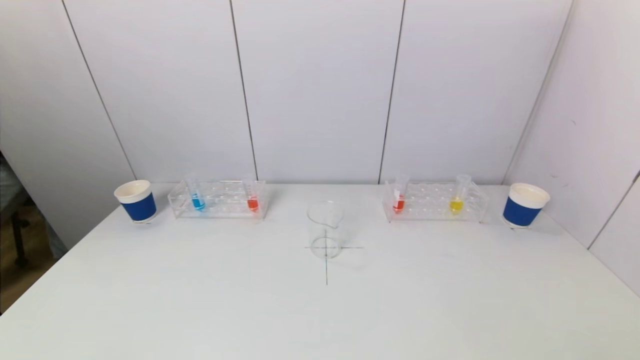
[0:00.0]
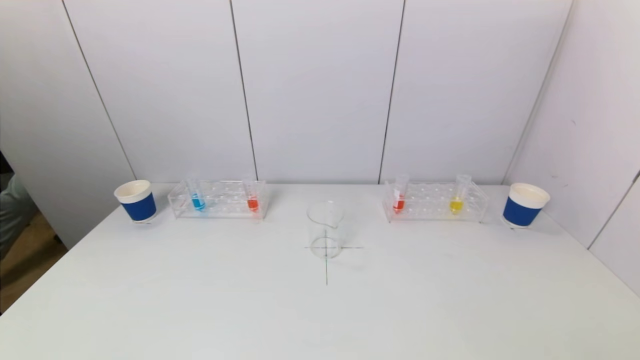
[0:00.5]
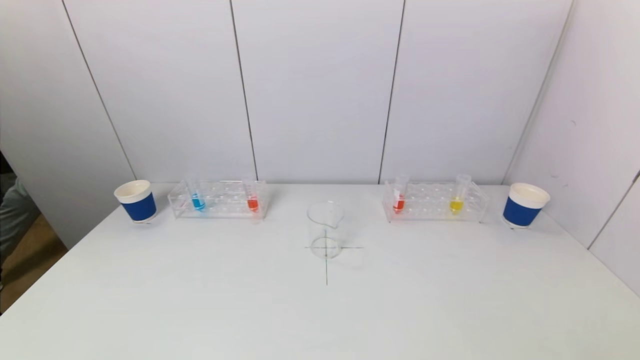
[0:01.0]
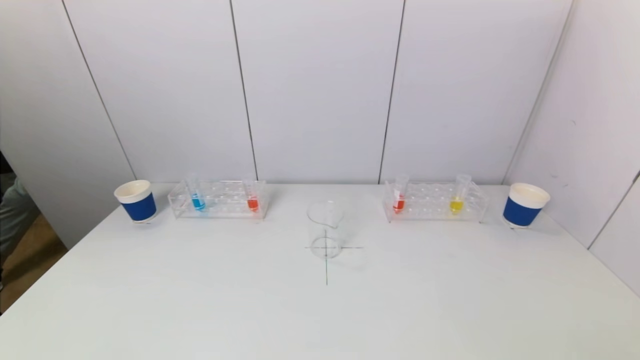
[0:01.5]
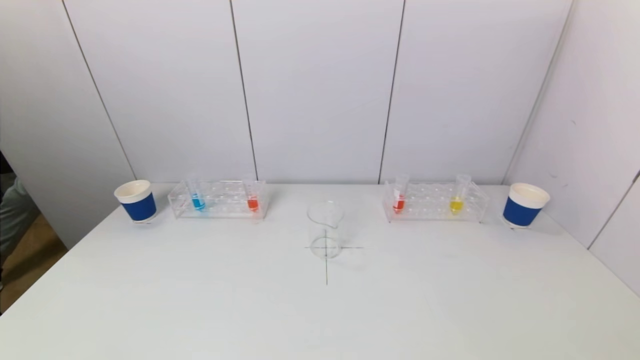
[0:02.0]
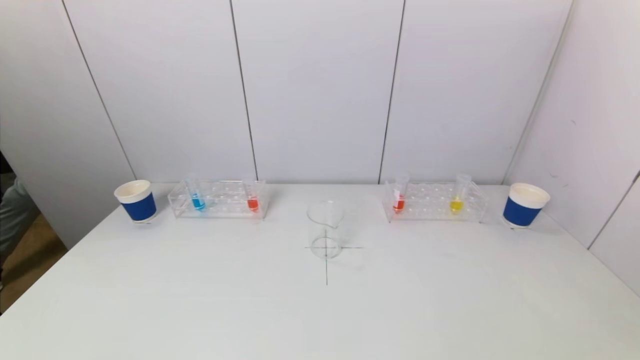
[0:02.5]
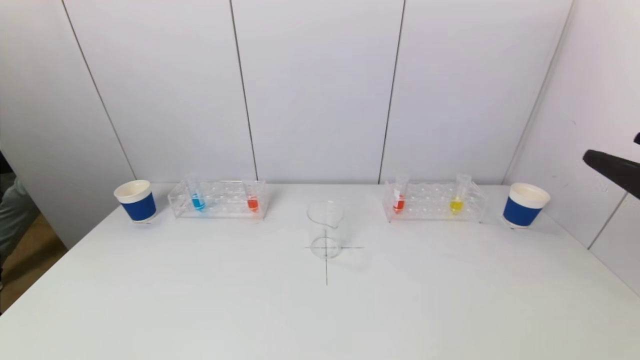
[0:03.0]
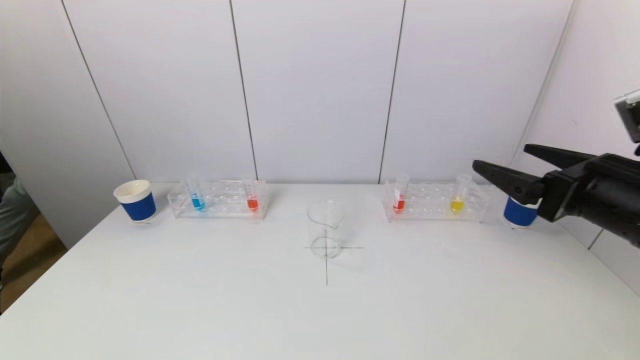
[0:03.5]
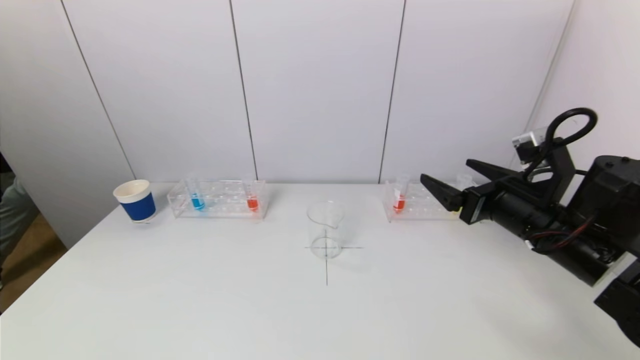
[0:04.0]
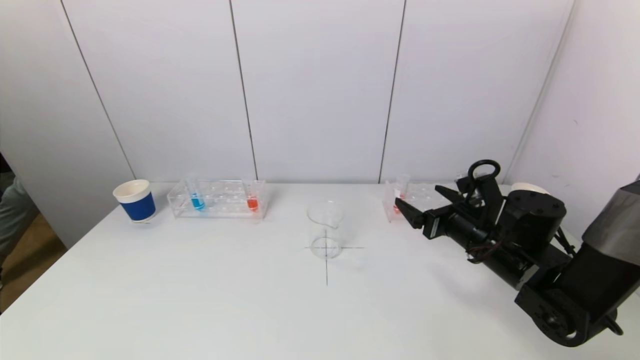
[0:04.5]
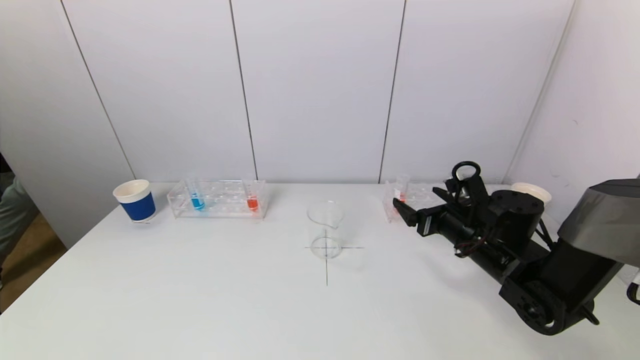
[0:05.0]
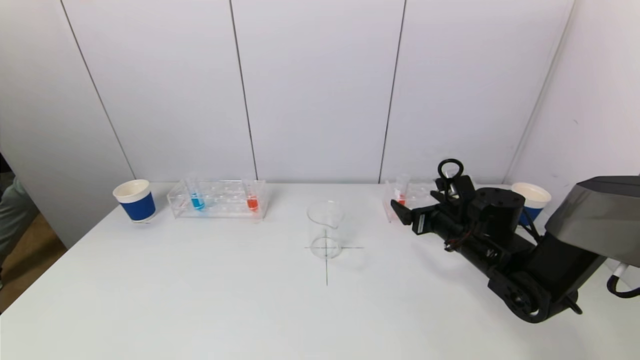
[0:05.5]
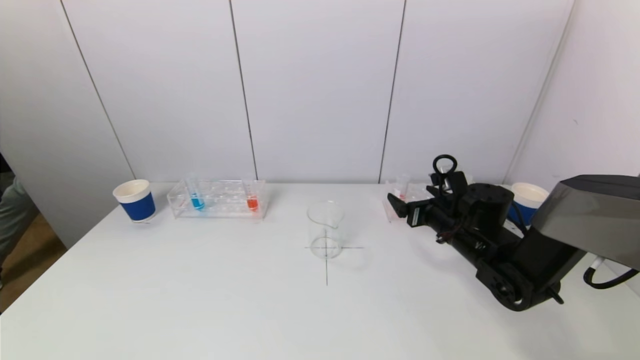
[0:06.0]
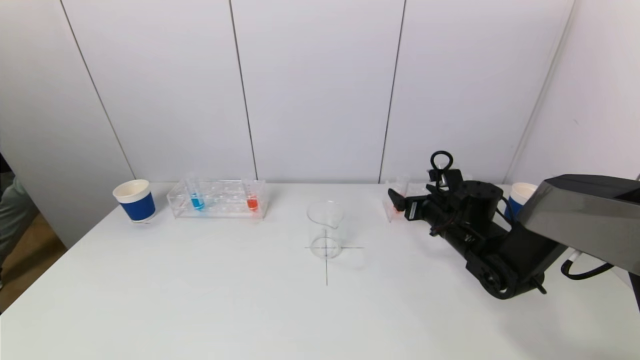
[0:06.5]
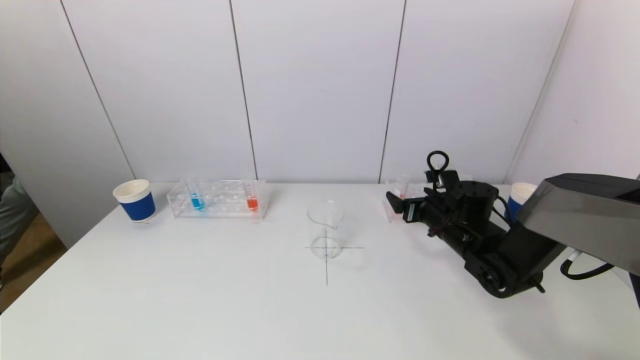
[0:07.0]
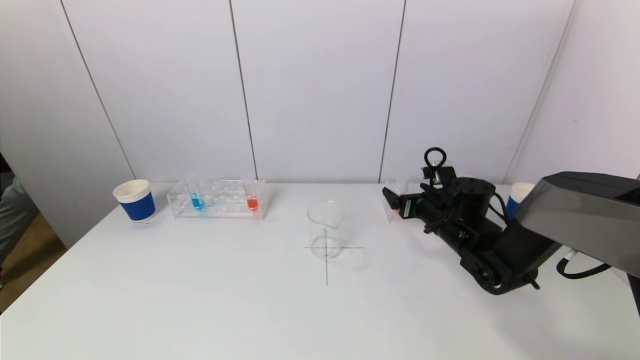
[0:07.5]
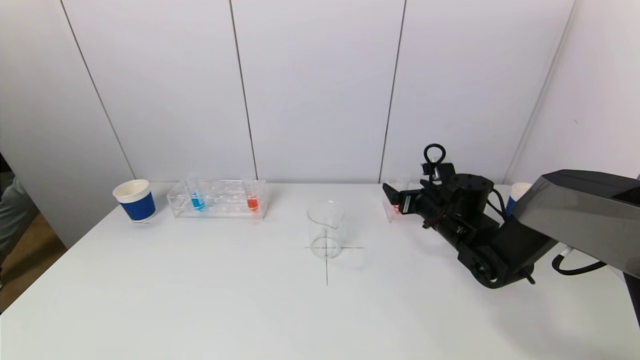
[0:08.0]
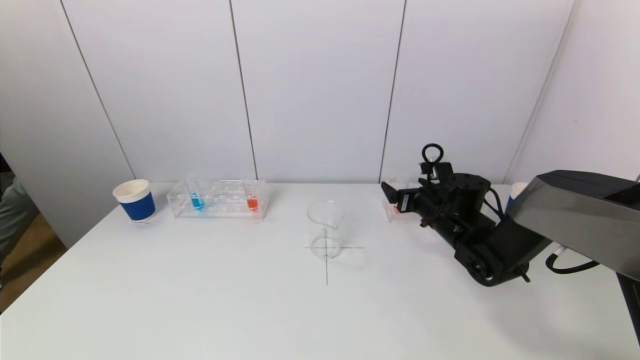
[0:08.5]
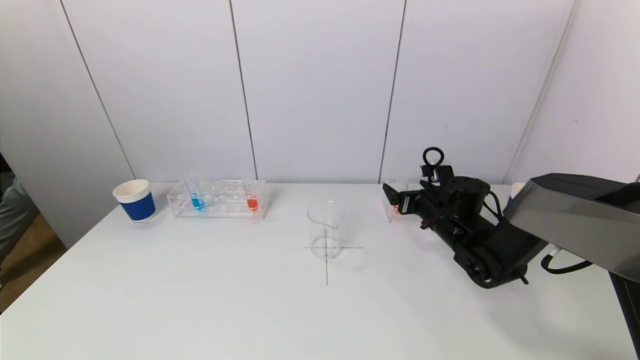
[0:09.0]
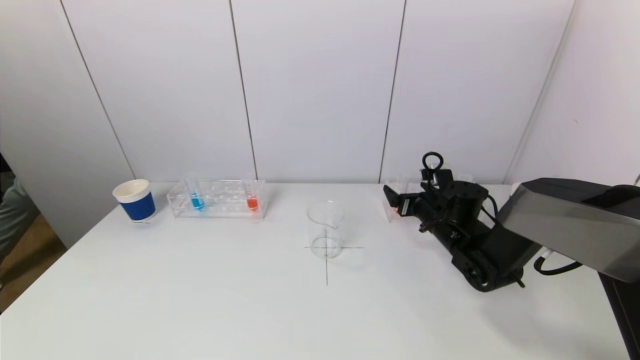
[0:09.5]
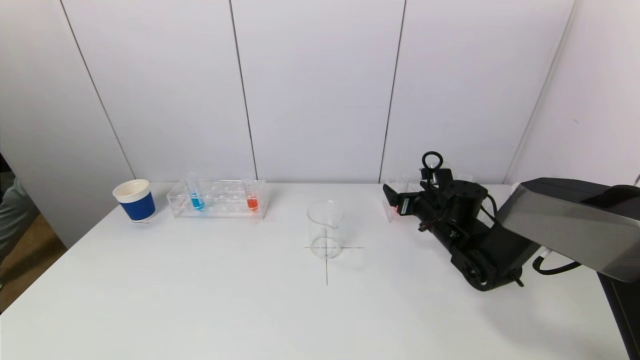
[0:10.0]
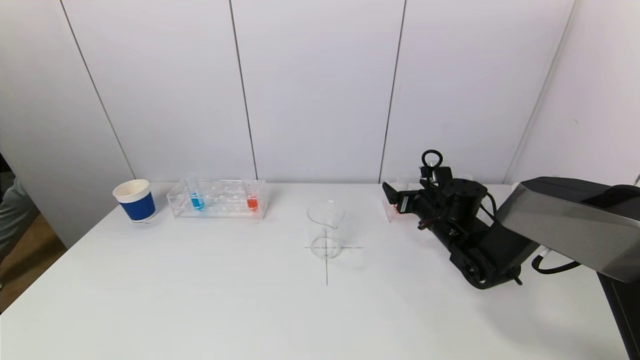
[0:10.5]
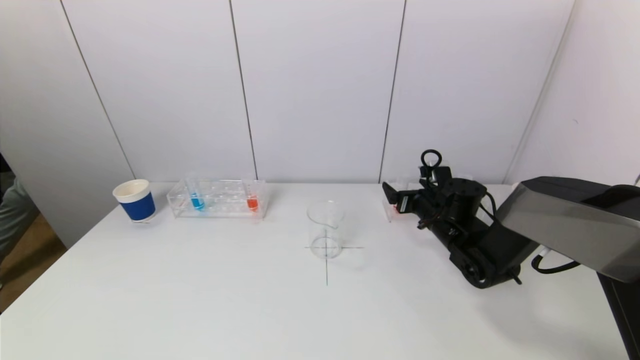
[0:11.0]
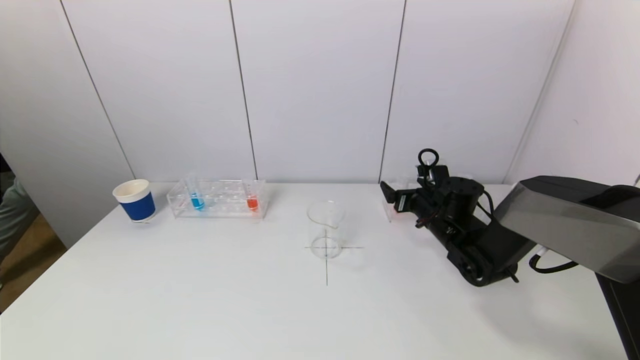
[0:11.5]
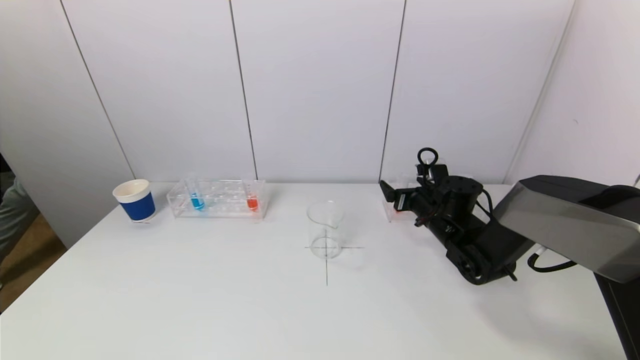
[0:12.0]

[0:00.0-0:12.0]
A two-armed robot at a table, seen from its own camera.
Task of the whole recording: pick up a test tube with pigment on left test tube rack and a test tube with pigment on right test tube rack by grippers and pour them into the beaker.
0:02.0 to 0:04.0: The right gripper goes approximately 30 cm forward.
0:04.0 to 0:06.0: The right gripper is displaced forward and downward by some 15 cm.
0:06.0 to 0:10.0: The grippers stay close to where they were, moving slightly.
0:10.0 to 0:12.0: Both grippers stay about where they are.

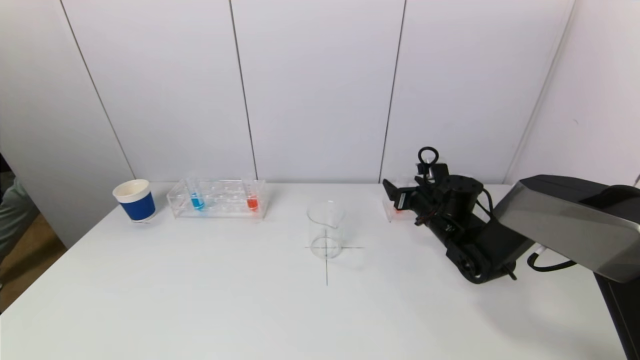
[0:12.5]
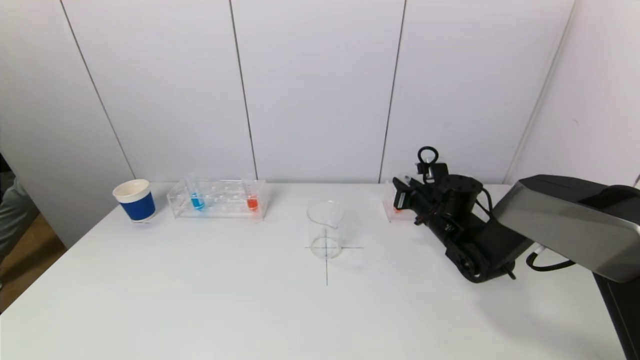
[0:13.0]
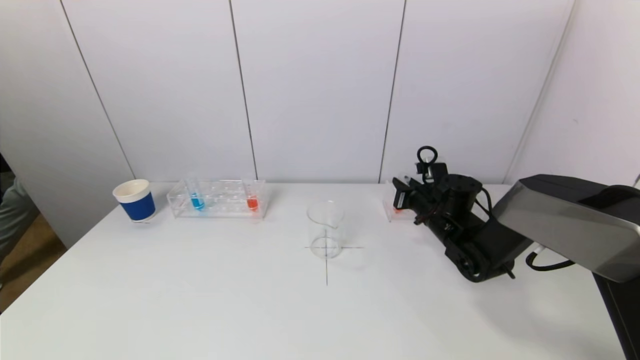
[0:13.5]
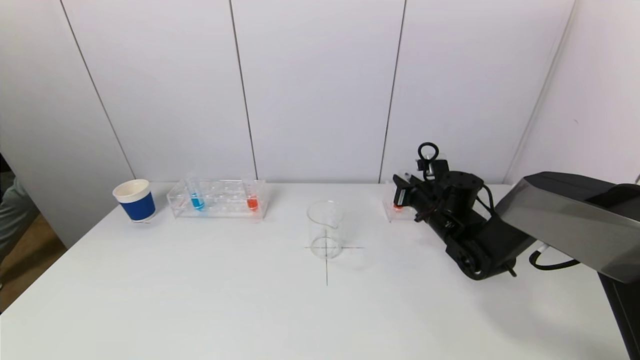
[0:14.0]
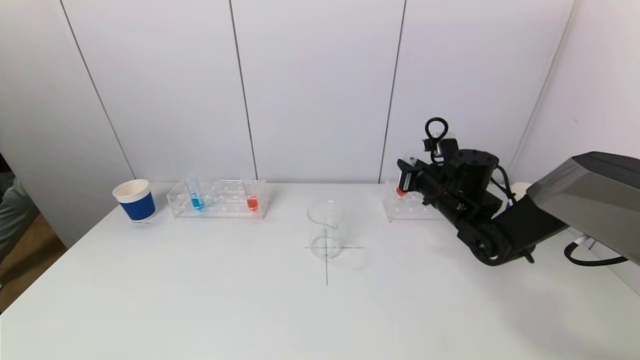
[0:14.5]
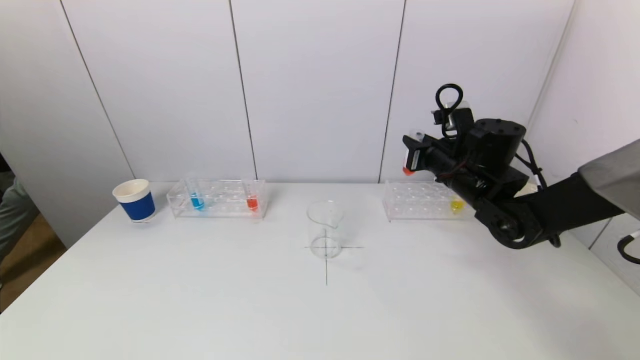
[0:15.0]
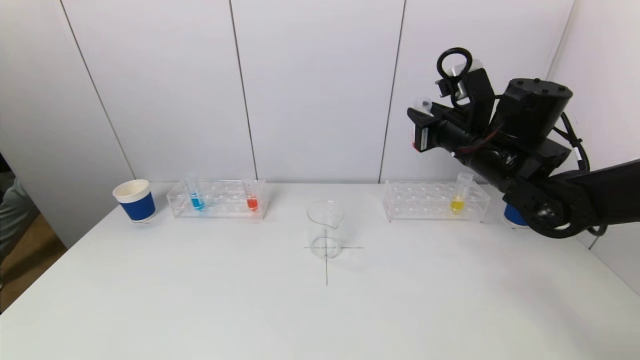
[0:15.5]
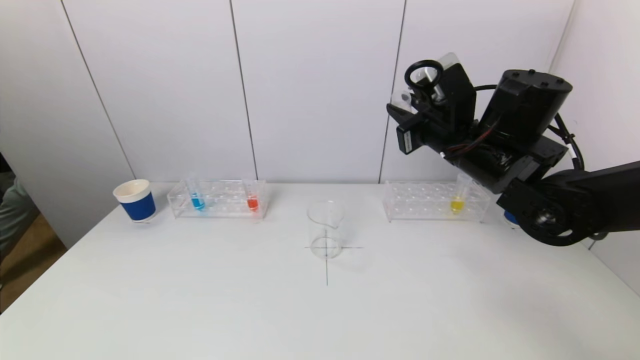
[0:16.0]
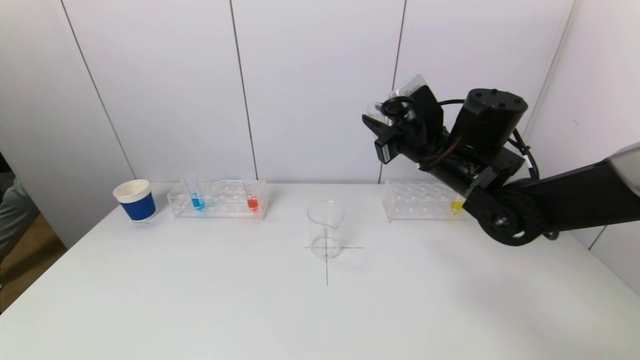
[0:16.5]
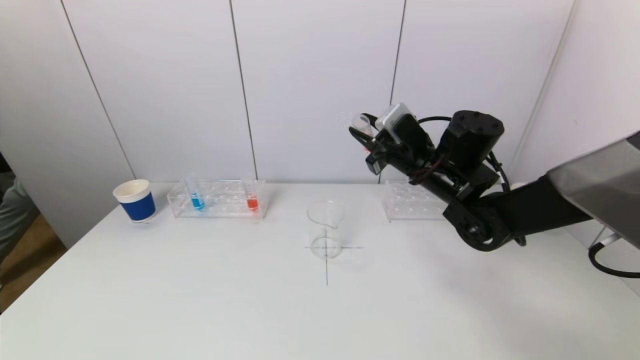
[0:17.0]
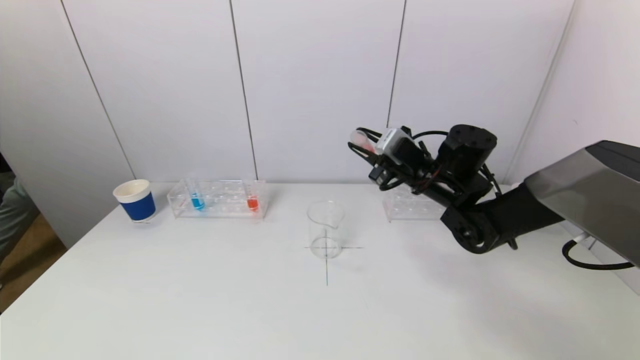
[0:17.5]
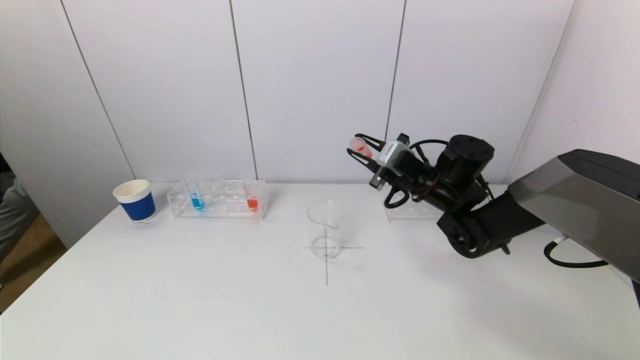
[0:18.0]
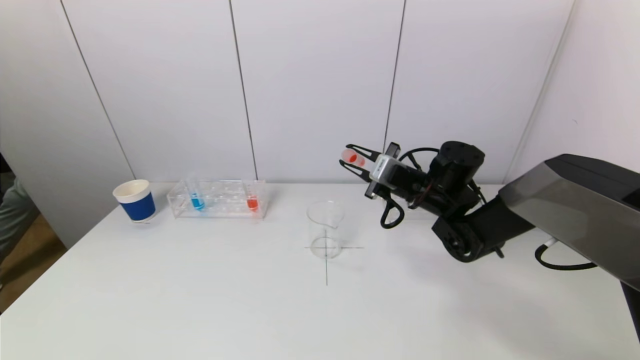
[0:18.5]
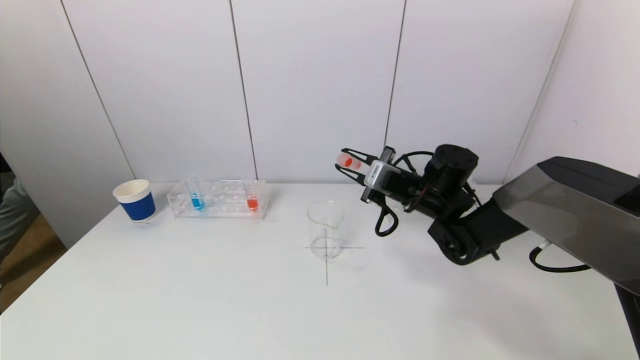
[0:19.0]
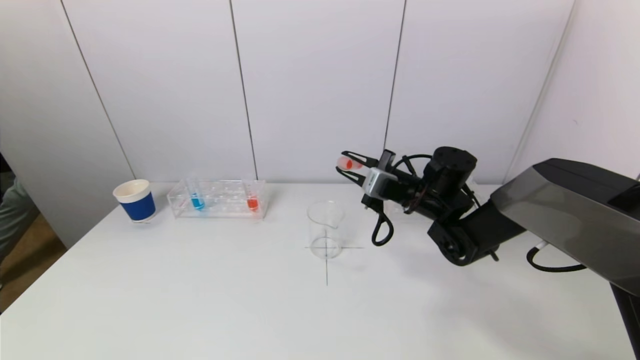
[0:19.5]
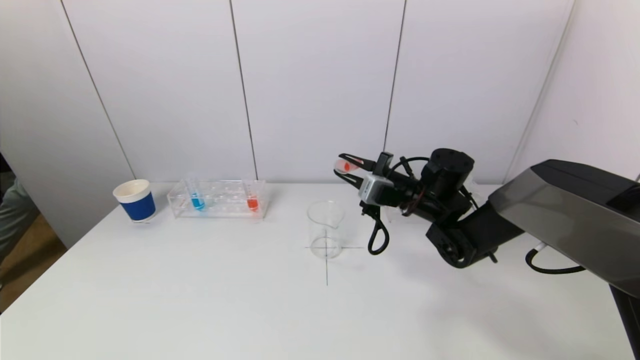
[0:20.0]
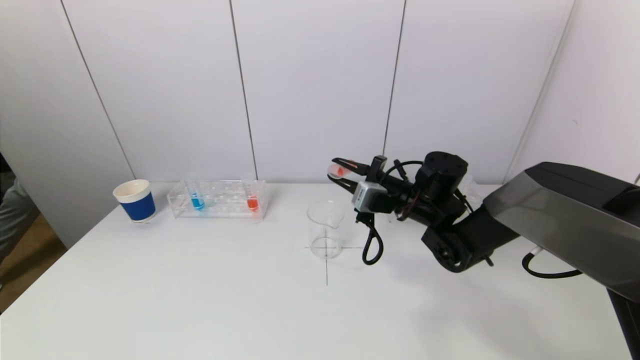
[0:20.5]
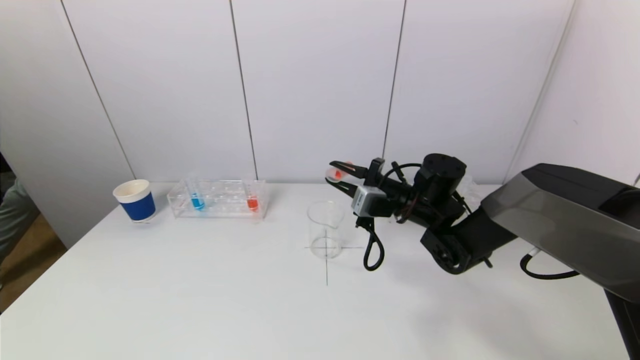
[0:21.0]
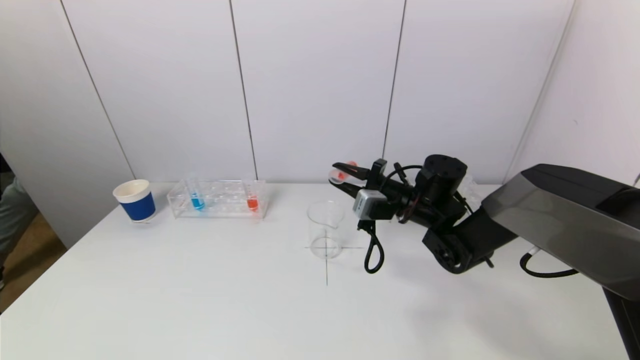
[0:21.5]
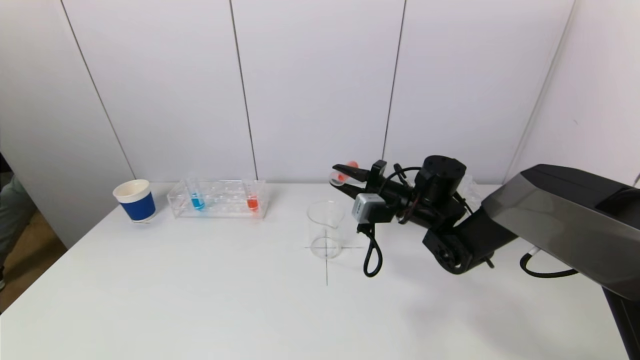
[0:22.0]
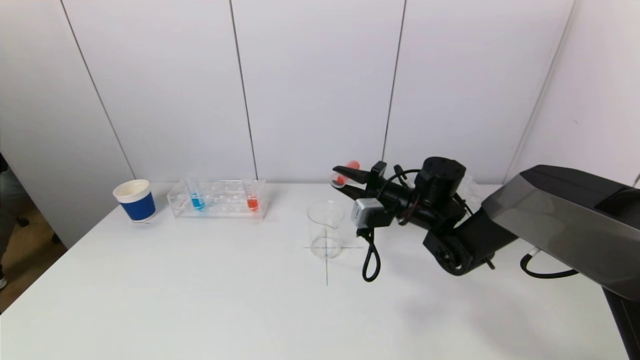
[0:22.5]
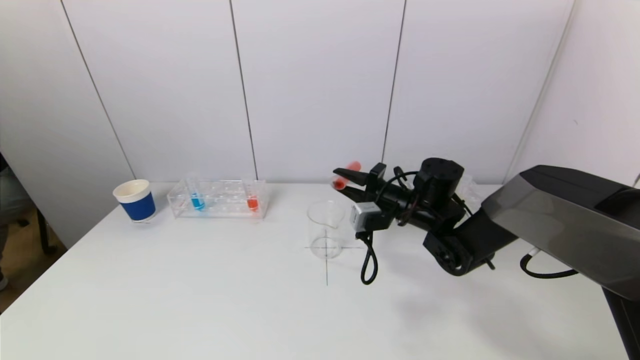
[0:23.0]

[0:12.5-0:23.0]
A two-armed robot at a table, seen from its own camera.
Task of the whole recording: pick up a test tube with pigment on left test tube rack and a test tube with pigment on right test tube rack by grippers and pour them into the beaker.
0:12.5 to 0:14.5: The right gripper moves upward, approximately 5 cm, and closes its fingers.
0:14.5 to 0:16.5: The right gripper goes roughly 10 cm upward and to the left.
0:16.5 to 0:19.0: The right gripper moves downward, some 10 cm.
0:19.0 to 0:21.0: The grippers move only a little.
0:21.0 to 0:23.0: The grippers make only small movements.
